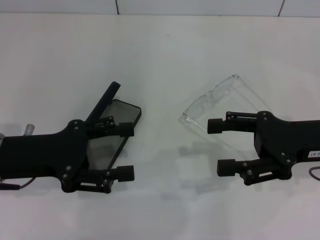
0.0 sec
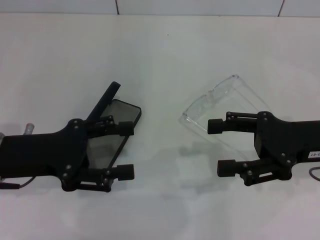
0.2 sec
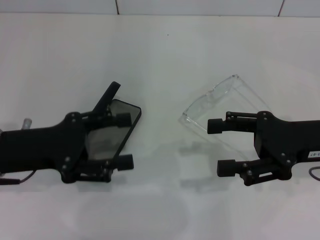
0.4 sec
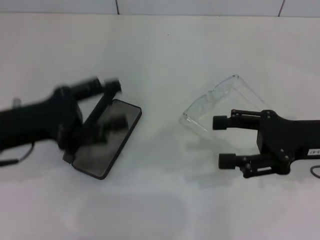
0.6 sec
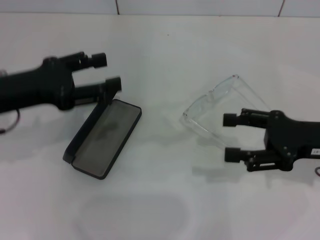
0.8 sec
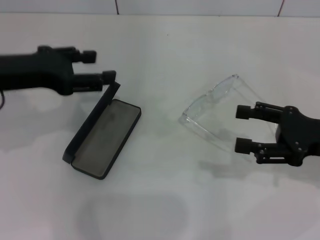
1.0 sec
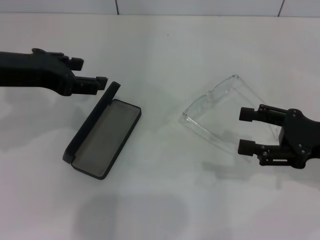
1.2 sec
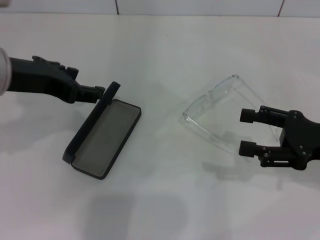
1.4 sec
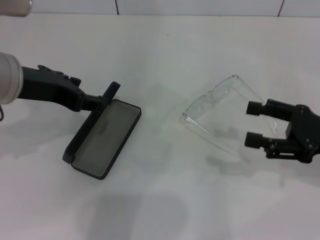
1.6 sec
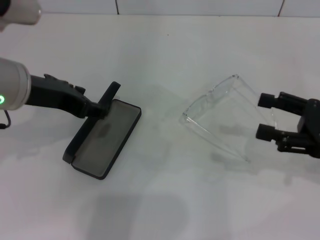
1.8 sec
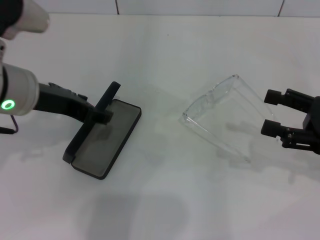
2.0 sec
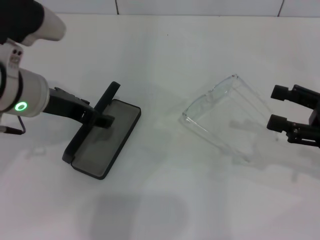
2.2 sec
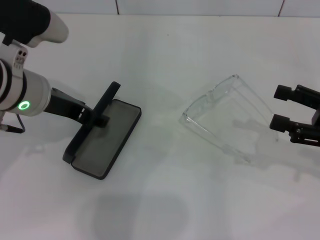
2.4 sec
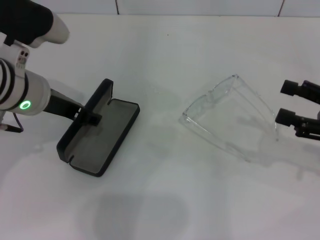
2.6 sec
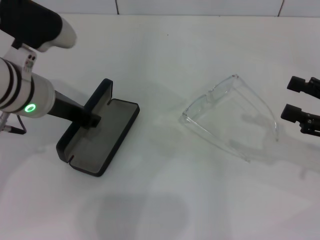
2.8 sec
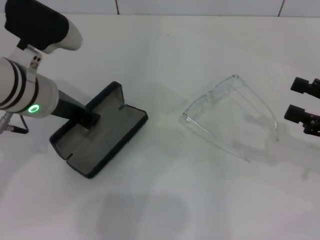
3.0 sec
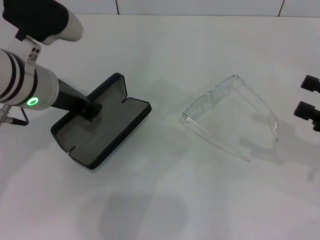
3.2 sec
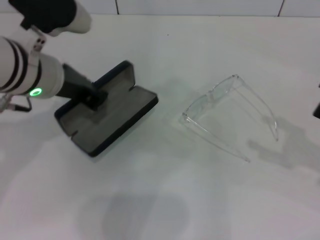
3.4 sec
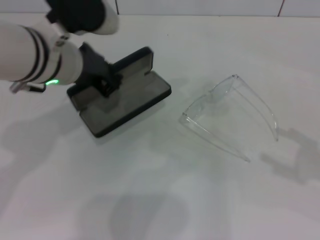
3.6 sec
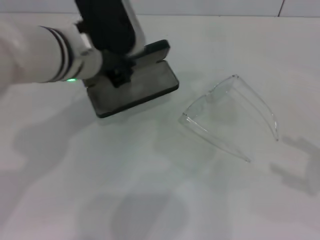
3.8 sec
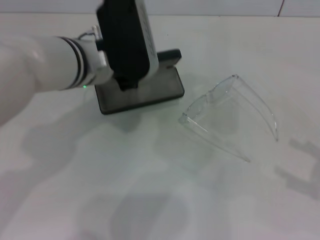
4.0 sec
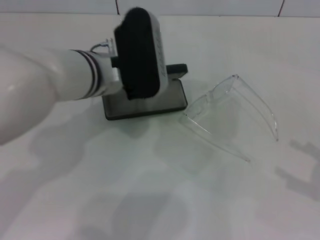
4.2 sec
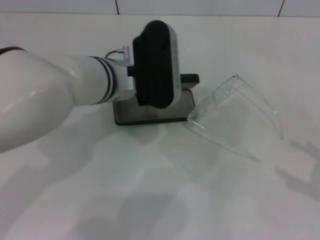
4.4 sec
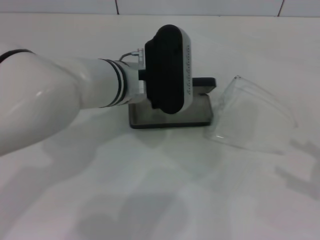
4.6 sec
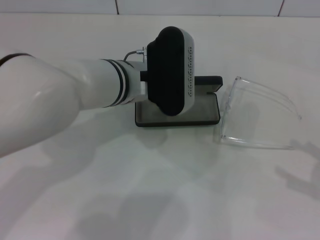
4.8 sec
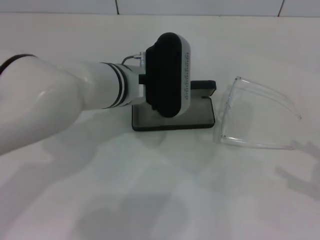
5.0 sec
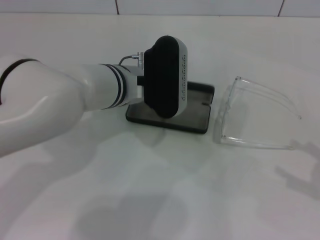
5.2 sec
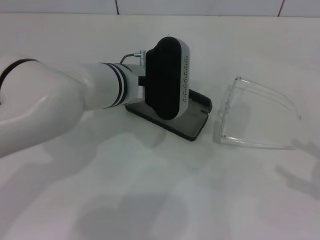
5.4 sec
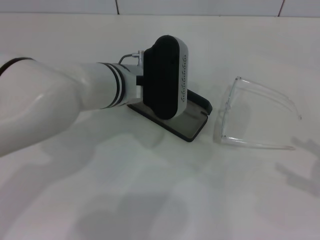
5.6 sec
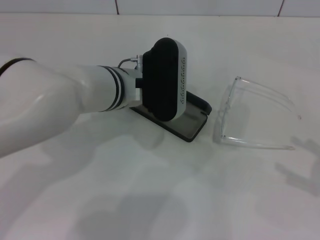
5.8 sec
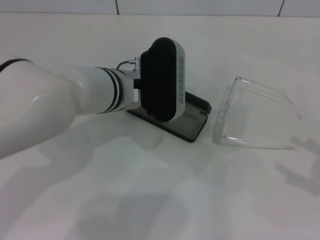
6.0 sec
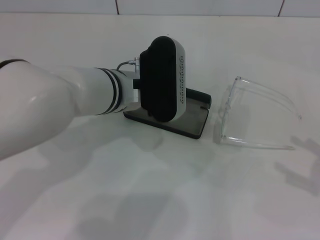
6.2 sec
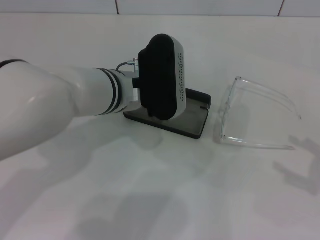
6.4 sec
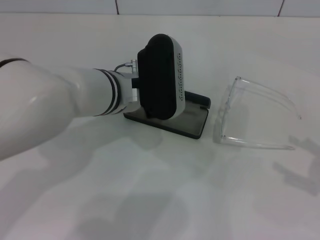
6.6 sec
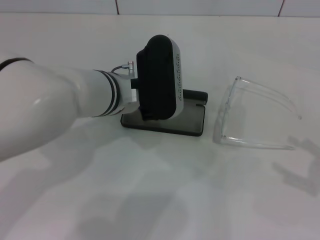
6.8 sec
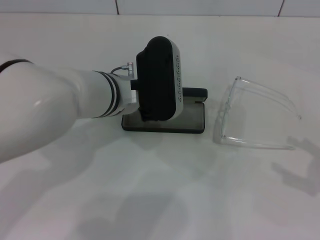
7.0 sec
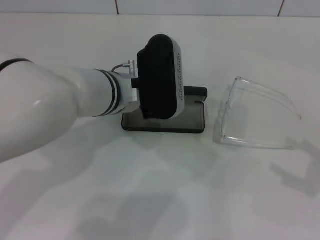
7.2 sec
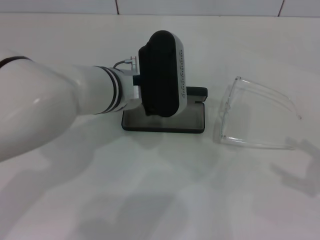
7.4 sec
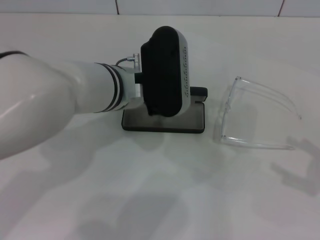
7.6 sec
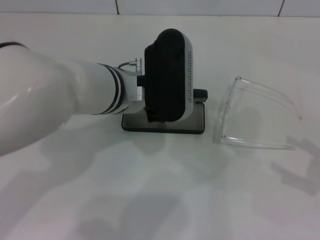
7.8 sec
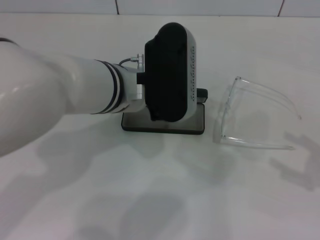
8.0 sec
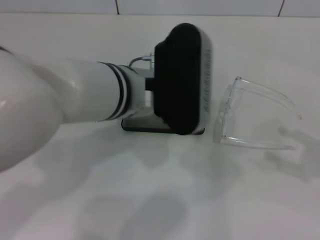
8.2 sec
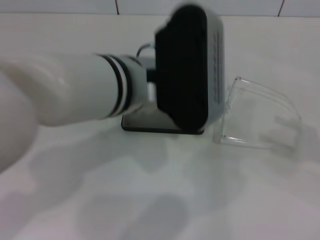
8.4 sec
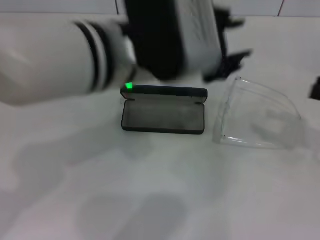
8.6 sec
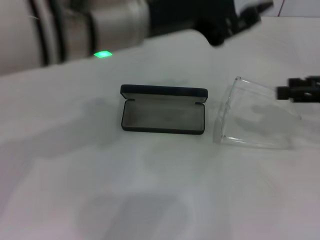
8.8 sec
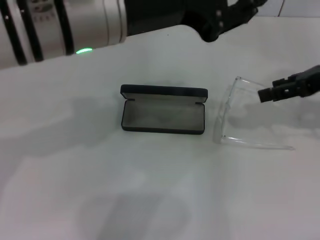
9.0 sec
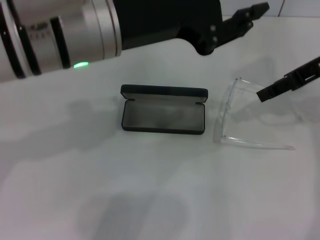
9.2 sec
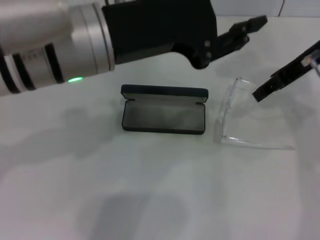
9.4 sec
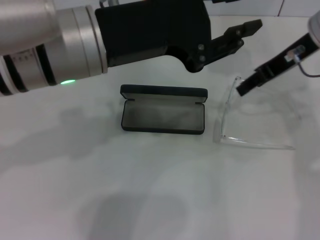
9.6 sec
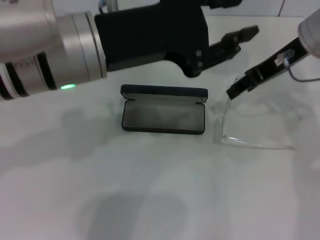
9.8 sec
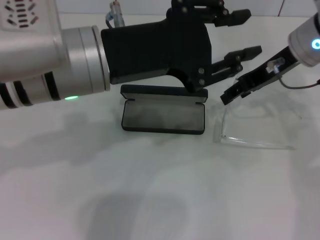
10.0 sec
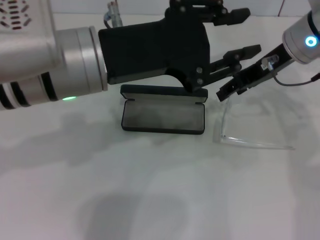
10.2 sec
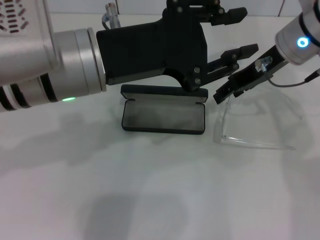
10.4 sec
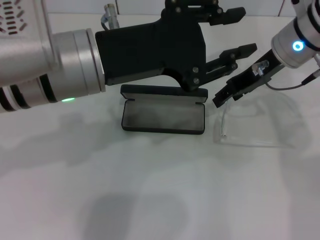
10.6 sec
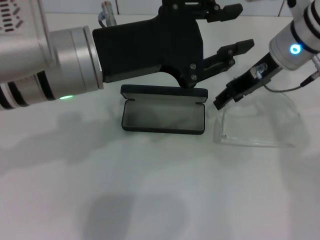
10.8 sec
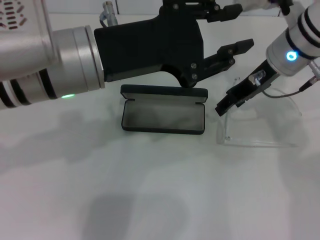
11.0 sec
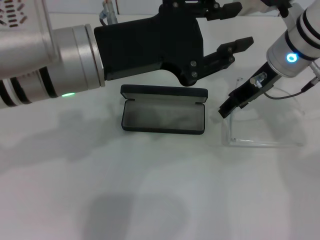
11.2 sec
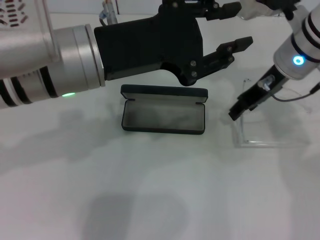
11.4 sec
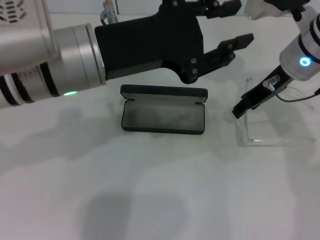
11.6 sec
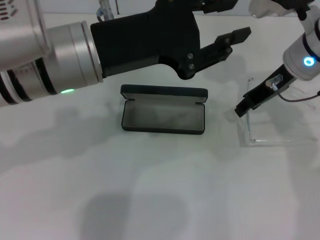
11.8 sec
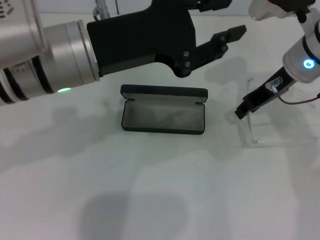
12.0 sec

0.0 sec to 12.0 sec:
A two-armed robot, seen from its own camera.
Step, 0.0 sec to 2.8 sec: Grab the glasses case with your left hand.
Step, 3.0 sec to 8.0 sec: Place the glasses case in the center of the table with your left hand.
Step, 8.2 sec to 11.8 sec: Grab the eyeglass frame with your right hand.
0.0 sec to 1.6 sec: The right gripper moves about 5 cm. The left gripper moves upward, roughly 10 cm.
1.6 sec to 3.0 sec: The left gripper moves downward, approximately 5 cm, and closes its fingers.
3.0 sec to 4.4 sec: The left gripper is displaced to the right by approximately 10 cm; the right gripper goes some 10 cm backward and to the right.
4.4 sec to 7.6 sec: There are only small adjustments of the grippers.
7.6 sec to 9.0 sec: The right gripper goes roughly 20 cm forward, upward and to the left. Meanwhile the left gripper moves upward, approximately 15 cm.
9.0 sec to 10.4 sec: The left gripper ends up about 5 cm from where it was. Meanwhile the right gripper travels to the left and forward by approximately 15 cm.

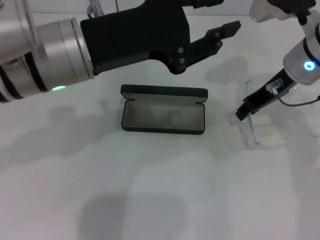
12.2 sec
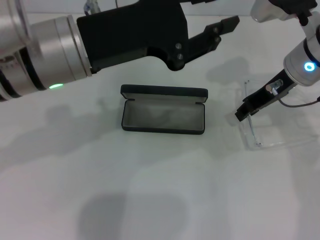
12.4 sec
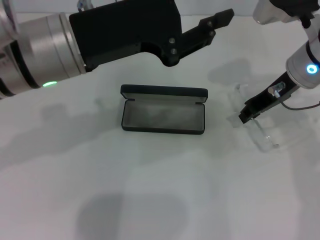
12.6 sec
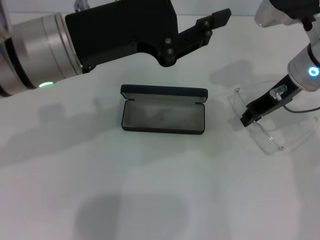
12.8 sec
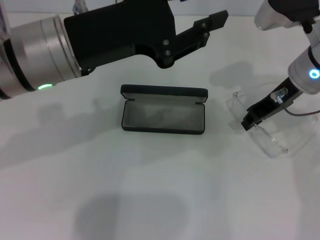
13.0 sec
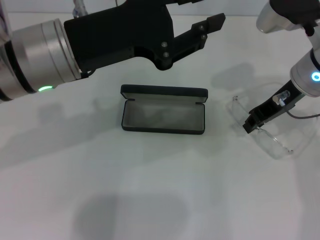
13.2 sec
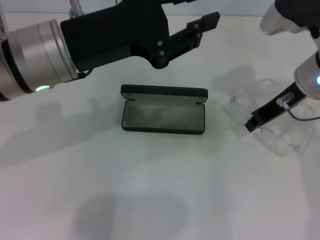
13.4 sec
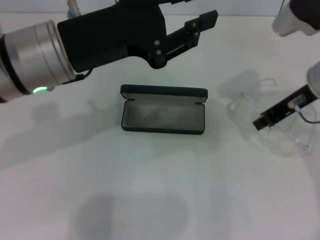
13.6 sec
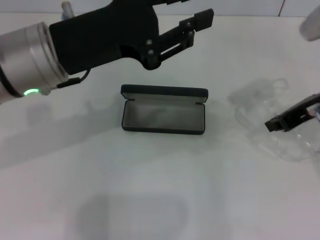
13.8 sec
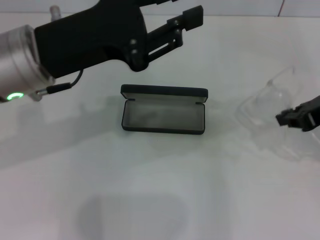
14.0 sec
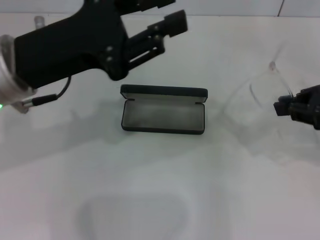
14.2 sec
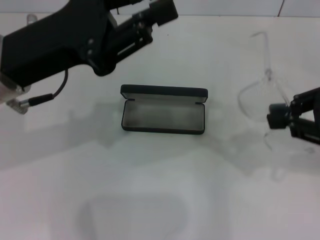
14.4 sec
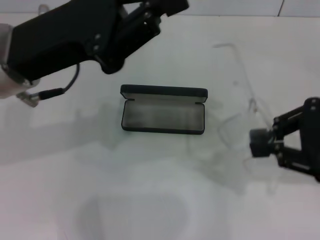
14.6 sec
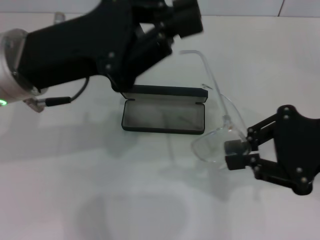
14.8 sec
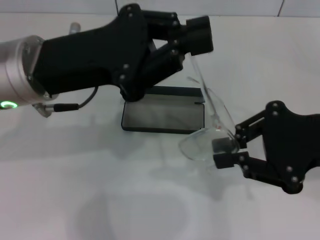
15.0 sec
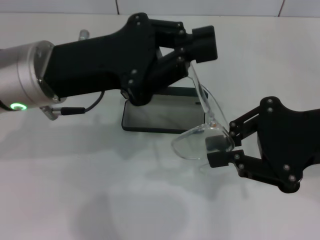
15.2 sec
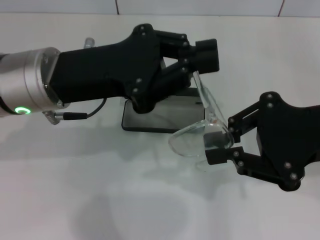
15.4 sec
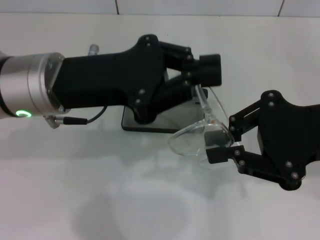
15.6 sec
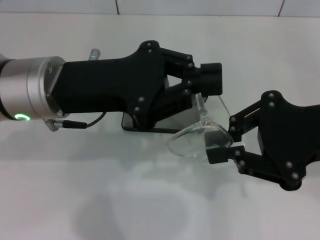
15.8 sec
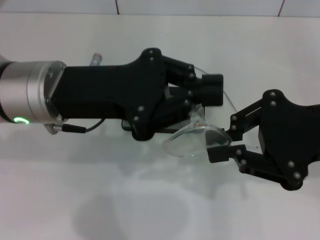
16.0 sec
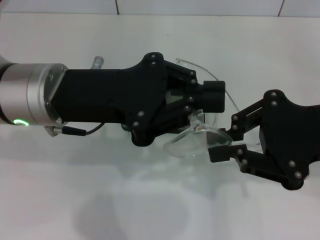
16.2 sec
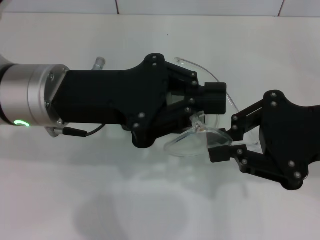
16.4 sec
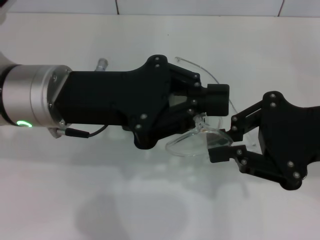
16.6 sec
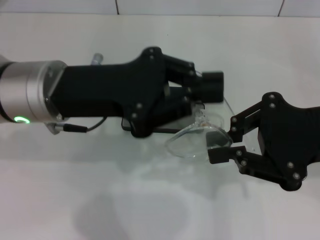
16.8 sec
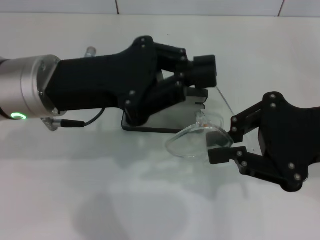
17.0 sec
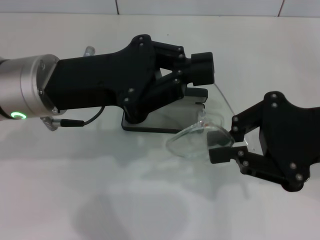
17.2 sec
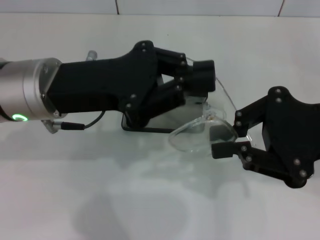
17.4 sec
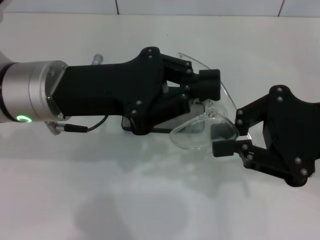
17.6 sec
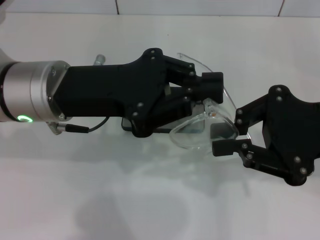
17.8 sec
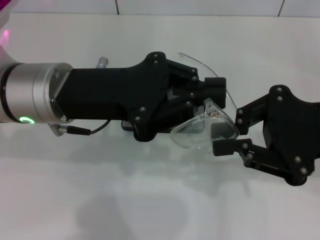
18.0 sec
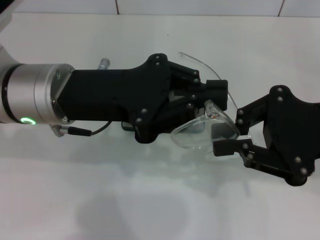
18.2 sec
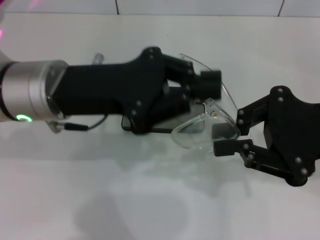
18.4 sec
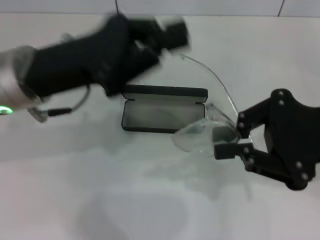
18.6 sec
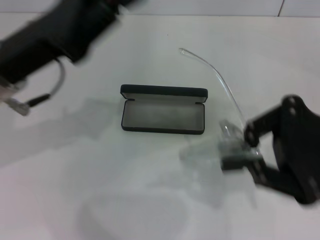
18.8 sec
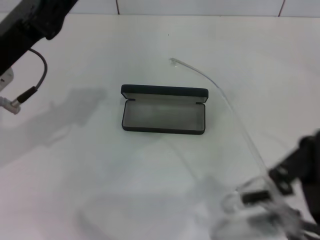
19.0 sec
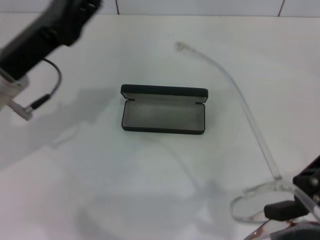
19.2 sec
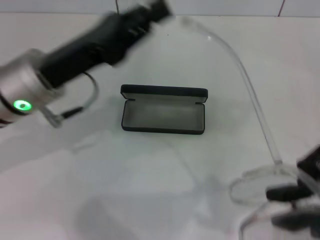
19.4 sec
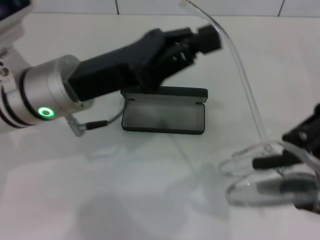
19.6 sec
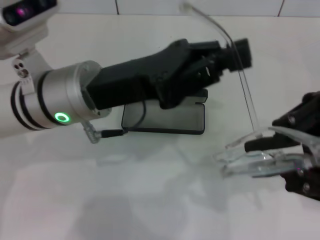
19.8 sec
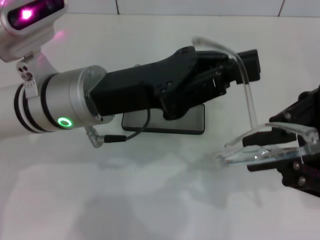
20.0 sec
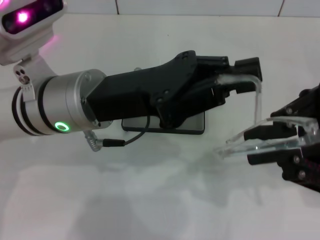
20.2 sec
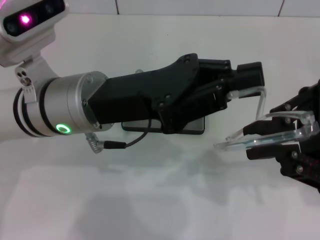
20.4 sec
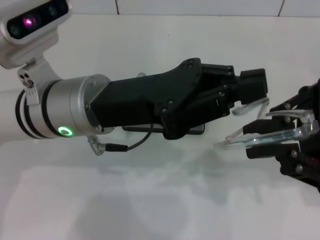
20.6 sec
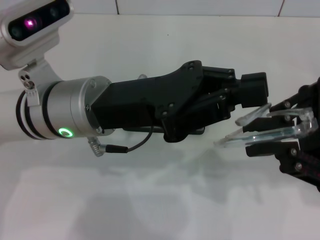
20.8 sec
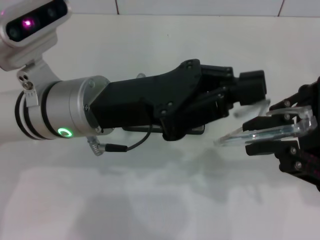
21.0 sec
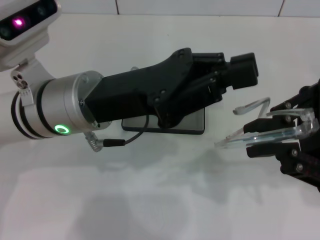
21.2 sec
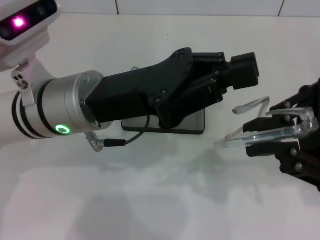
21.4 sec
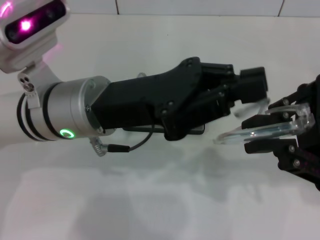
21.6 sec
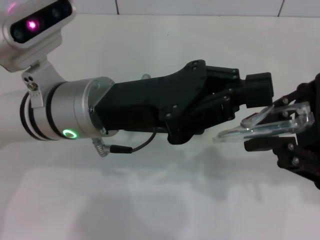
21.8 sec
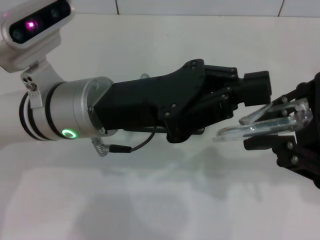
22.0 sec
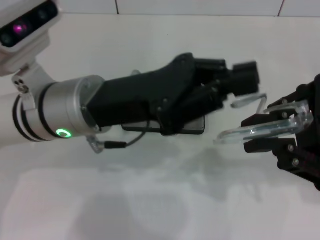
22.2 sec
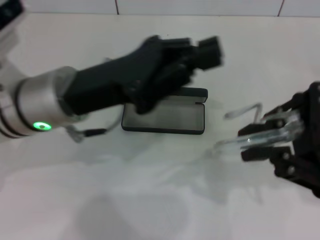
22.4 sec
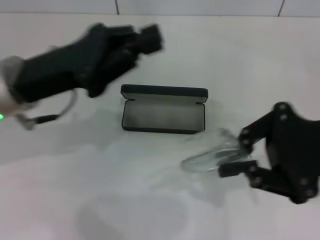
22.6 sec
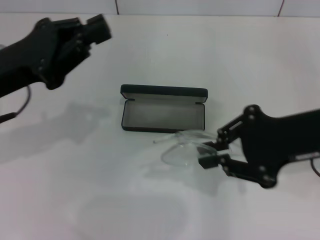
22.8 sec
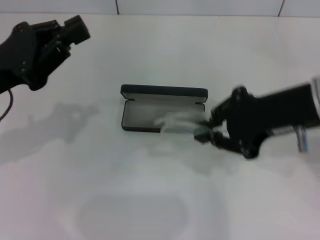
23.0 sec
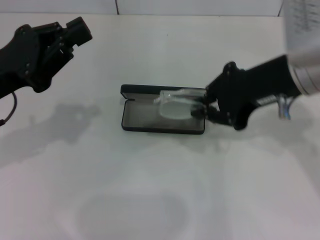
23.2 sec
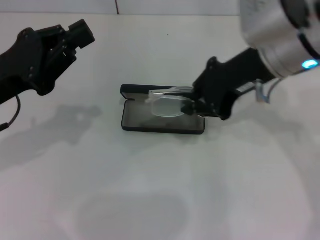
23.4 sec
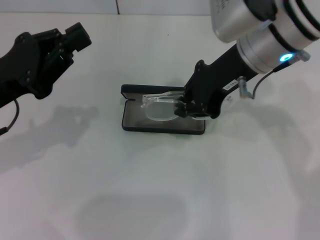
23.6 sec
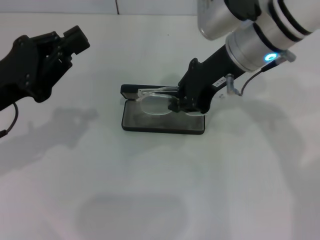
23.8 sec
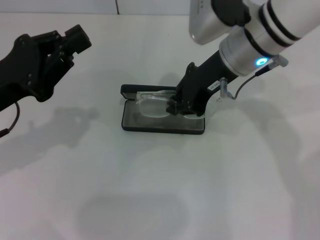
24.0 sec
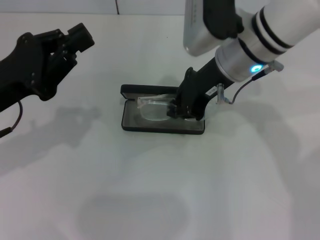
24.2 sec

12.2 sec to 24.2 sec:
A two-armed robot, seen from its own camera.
Step, 12.2 sec to 22.0 sec: Fold the frame with your left hand.
12.2 sec to 13.8 sec: The right gripper moves backward, about 5 cm.
13.8 sec to 15.2 sec: The right gripper shifts some 10 cm backward. Meanwhile the left gripper closes.
16.6 sec to 18.2 sec: There are only small adjustments of the grippers.
18.2 sec to 19.8 sec: The left gripper travels to the left and back again, some 5 cm each way.
21.2 sec to 22.6 sec: The left gripper shifts roughly 10 cm to the left.
22.6 sec to 24.2 sec: The right gripper heads to the left and forward, covering some 20 cm, while the left gripper goes roughly 5 cm to the left.
